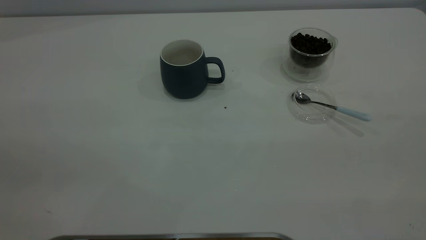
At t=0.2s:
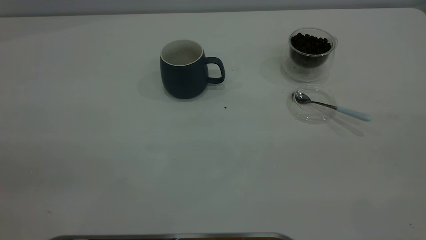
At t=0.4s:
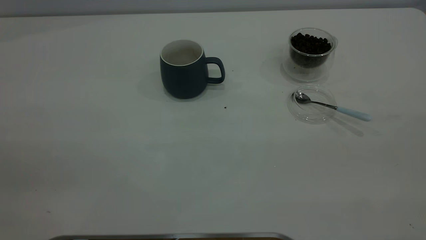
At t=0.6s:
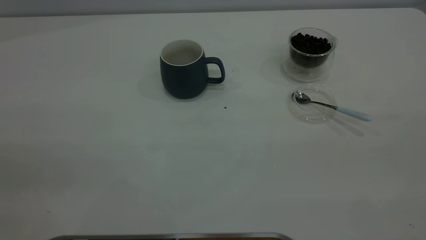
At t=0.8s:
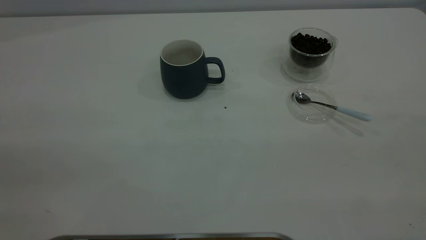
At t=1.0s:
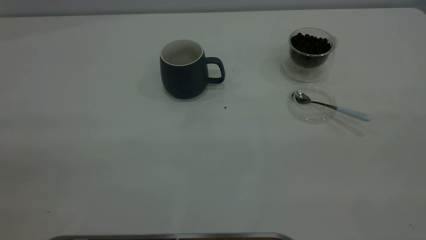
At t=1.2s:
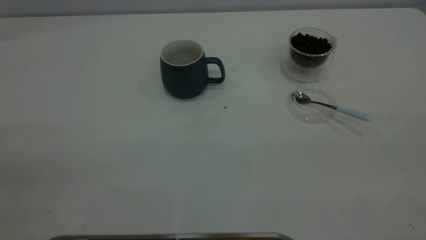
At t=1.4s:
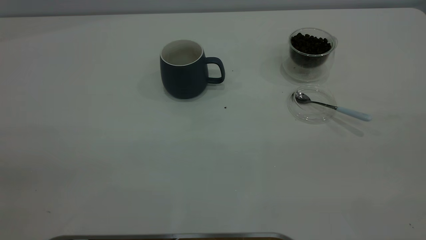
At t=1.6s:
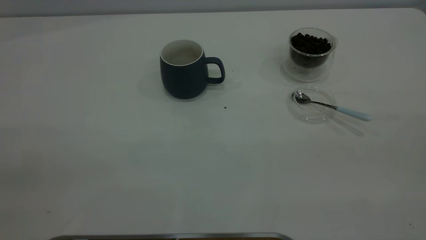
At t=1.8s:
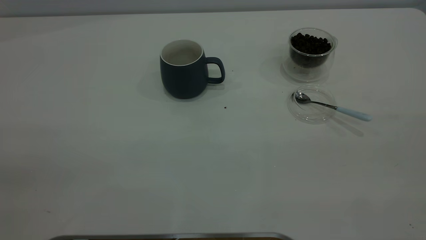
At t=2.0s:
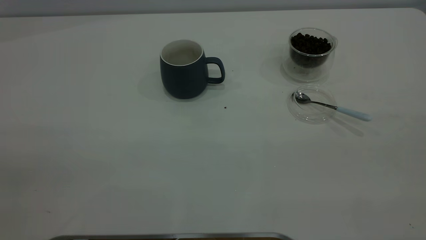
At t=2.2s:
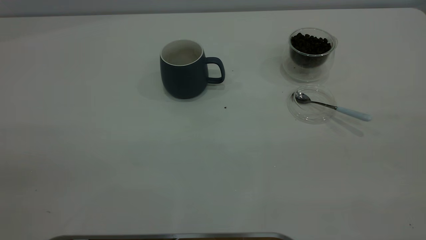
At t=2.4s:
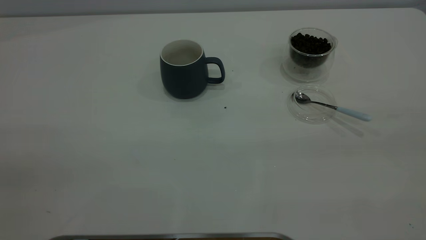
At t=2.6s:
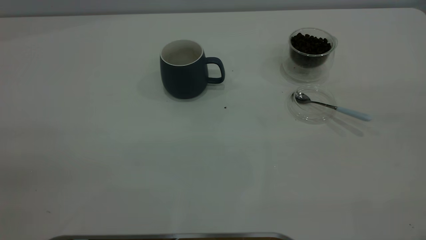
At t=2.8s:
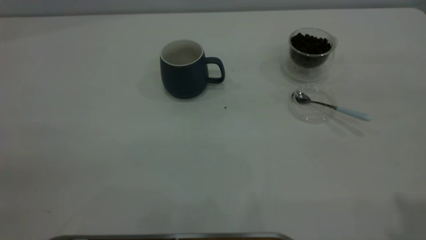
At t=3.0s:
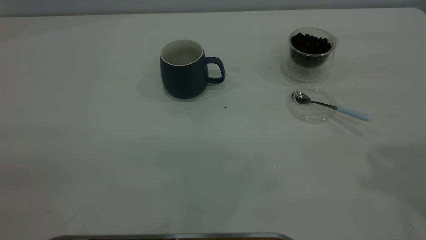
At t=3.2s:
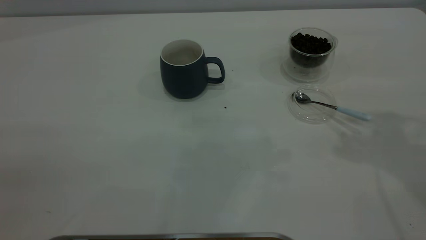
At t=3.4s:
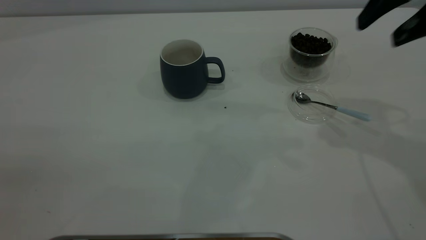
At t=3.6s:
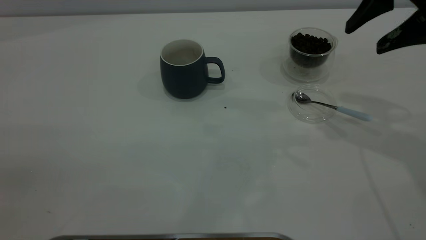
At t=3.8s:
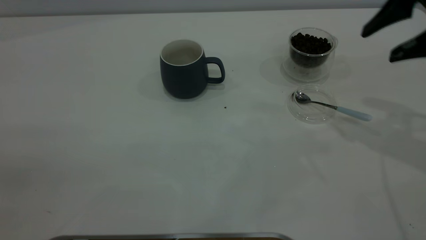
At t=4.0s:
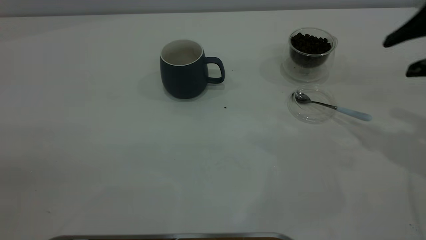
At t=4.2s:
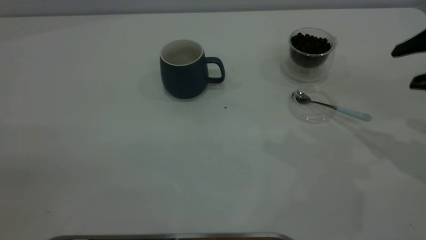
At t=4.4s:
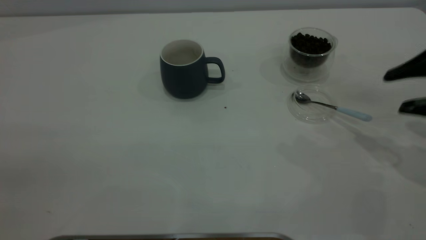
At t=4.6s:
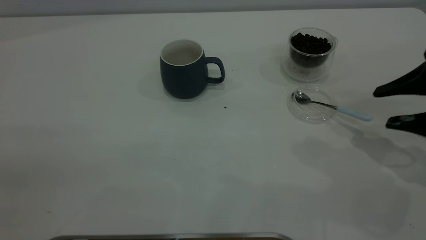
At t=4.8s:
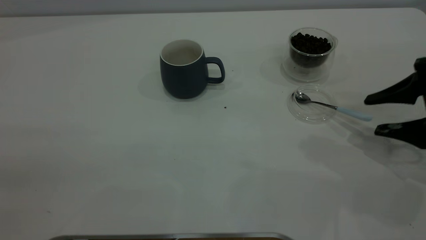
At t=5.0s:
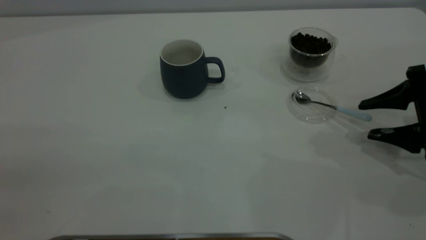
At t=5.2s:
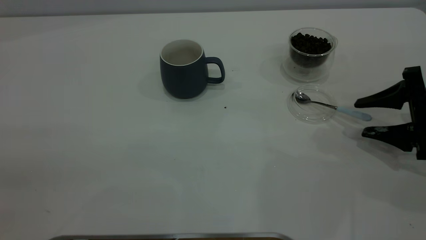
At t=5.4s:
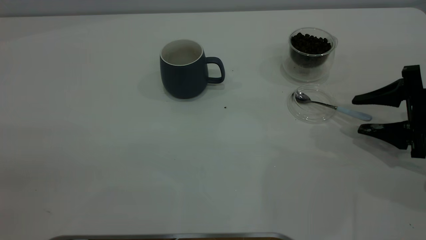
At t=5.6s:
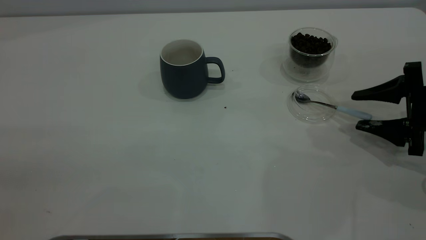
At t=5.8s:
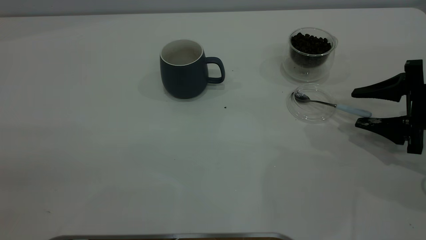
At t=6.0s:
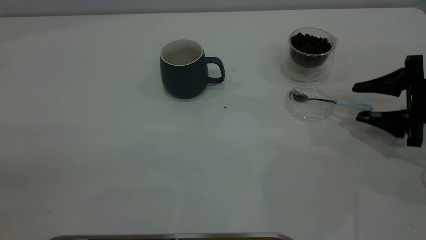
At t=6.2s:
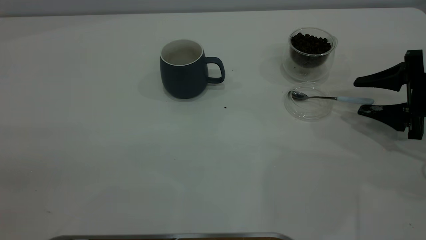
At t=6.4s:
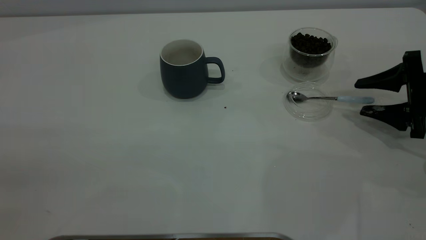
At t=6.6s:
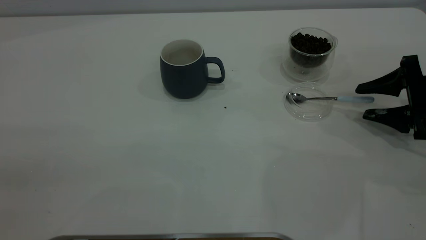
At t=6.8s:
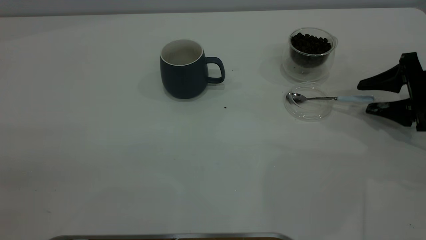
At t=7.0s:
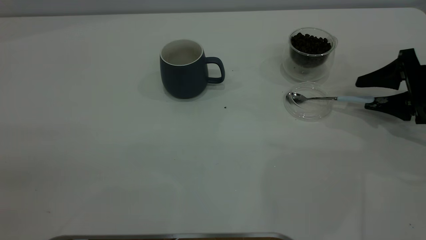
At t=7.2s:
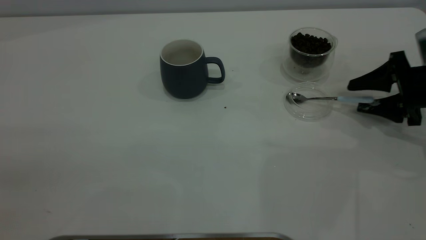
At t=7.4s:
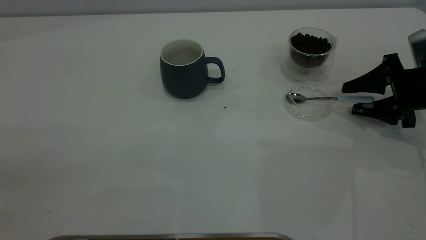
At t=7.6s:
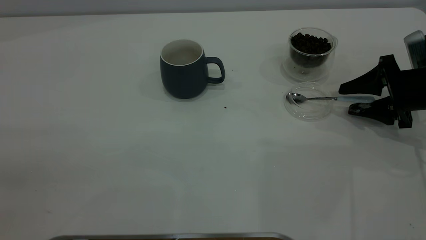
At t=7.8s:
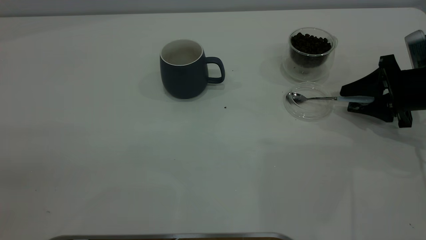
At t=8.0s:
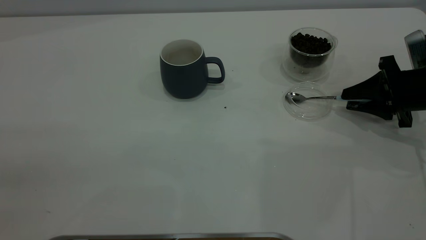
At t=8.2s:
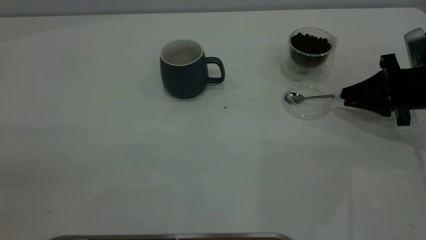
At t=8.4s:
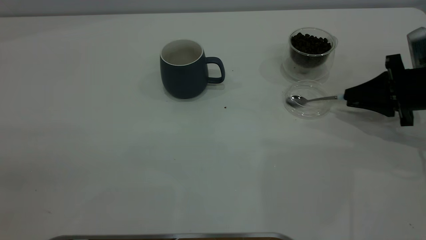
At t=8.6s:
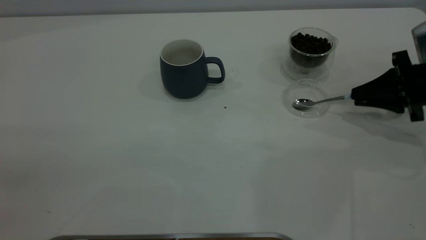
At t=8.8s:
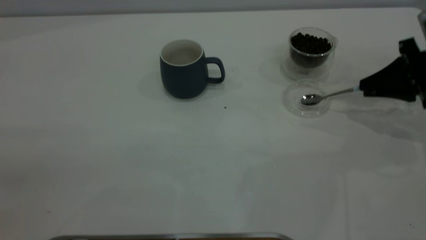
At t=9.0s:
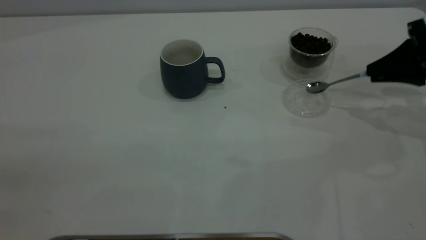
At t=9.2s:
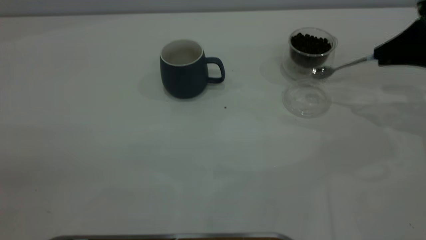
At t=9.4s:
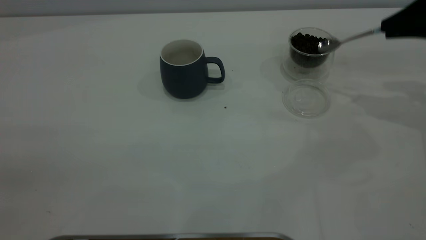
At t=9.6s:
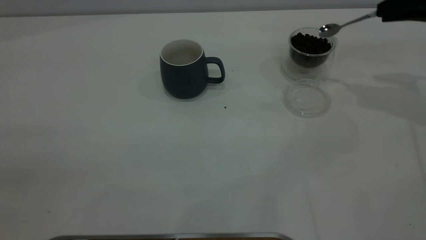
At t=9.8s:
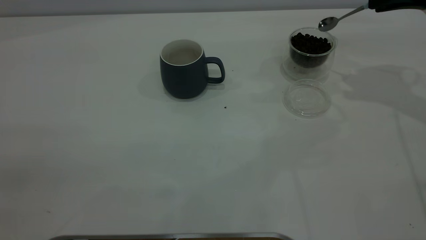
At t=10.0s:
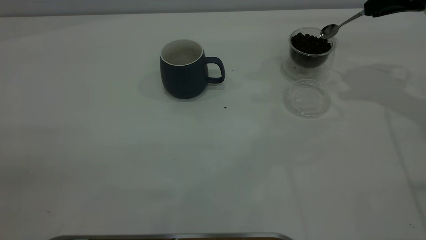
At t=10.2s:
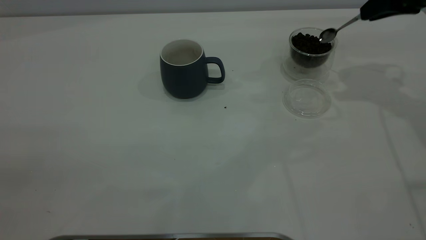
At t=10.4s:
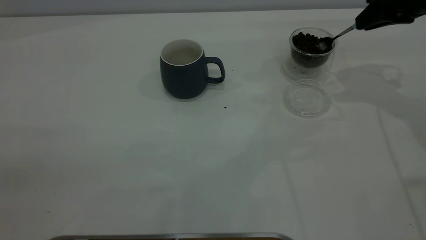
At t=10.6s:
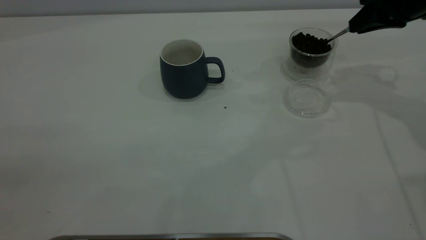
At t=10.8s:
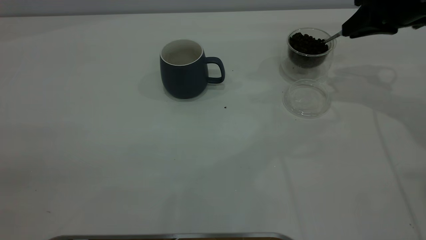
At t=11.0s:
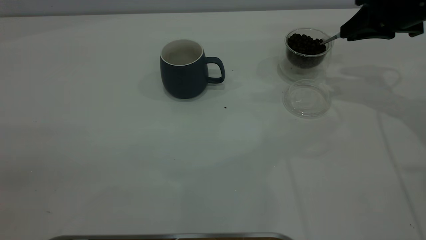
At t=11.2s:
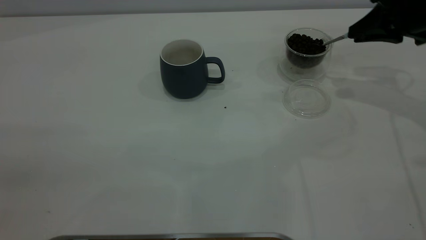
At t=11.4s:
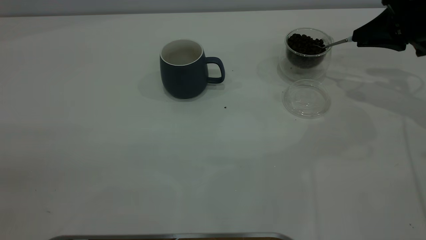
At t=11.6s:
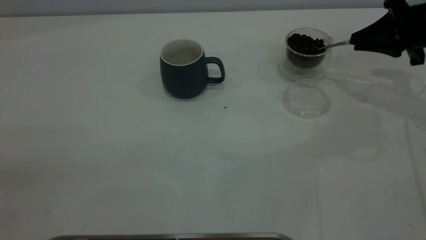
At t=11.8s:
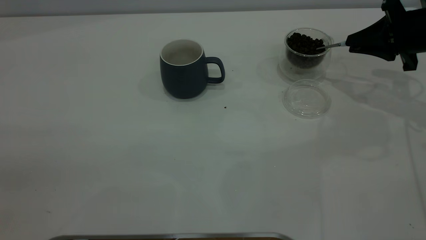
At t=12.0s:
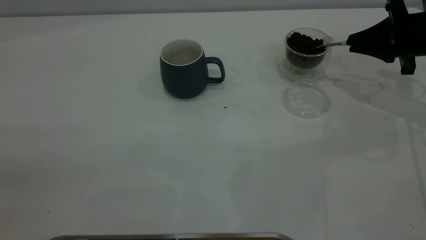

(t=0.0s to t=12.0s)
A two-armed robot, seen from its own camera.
Task of the whole recording: the left gripper place the grey cup in the center of the table, the right gripper take the blue spoon from the cup lid and scoop out the coffee beans from the coffee cup and put them into the grey cup, the right gripper put the spoon back into the cup lid.
Step, t=0.0s - t=9.2s: Pick up the spoon.
t=3.0s - t=4.4s: The right gripper heads downward, covering some 25 cm.
t=4.4s - t=6.0s: The right gripper heads downward, covering some 10 cm.
t=6.0s - t=7.6s: The grippers move only a little.
t=7.6s - t=9.0s: The right gripper moves upward, roughly 10 cm, and closes.
t=9.0s - t=10.4s: The right gripper travels upward, forward and to the left by roughly 10 cm.
t=10.4s - t=12.0s: The right gripper goes some 10 cm downward.

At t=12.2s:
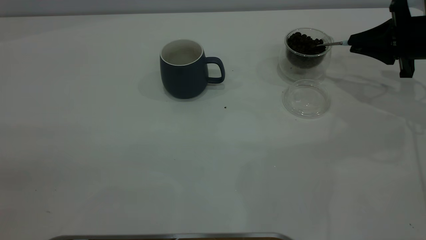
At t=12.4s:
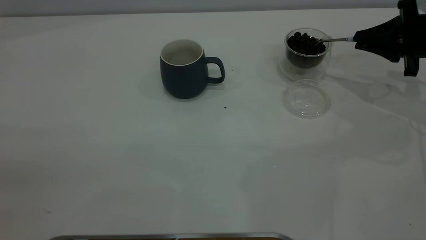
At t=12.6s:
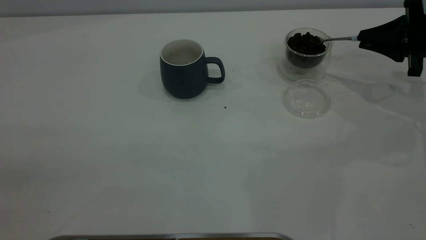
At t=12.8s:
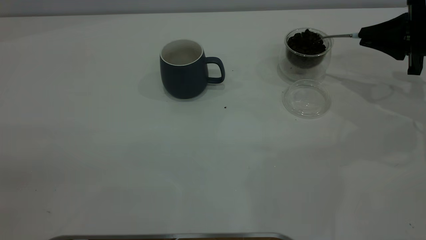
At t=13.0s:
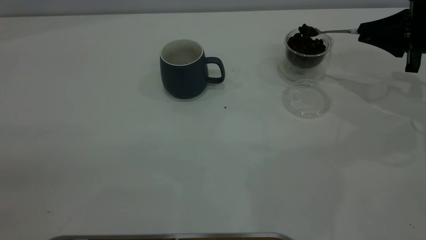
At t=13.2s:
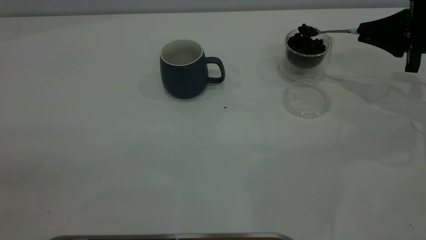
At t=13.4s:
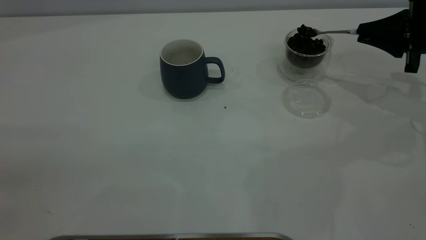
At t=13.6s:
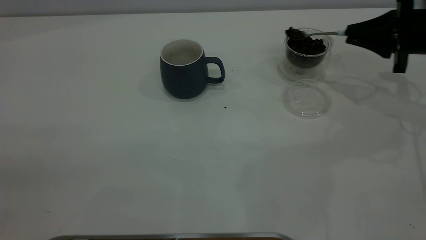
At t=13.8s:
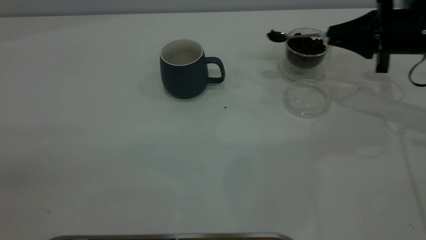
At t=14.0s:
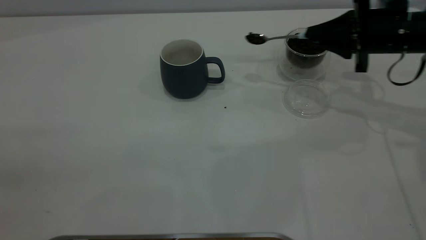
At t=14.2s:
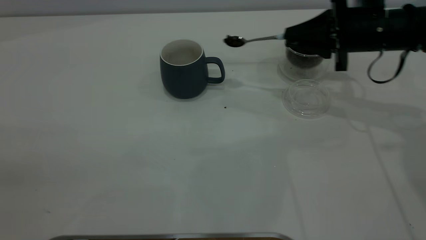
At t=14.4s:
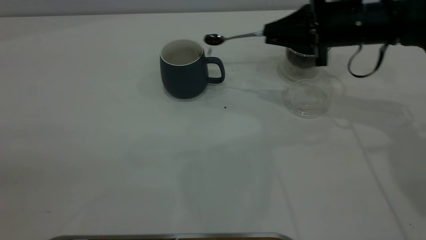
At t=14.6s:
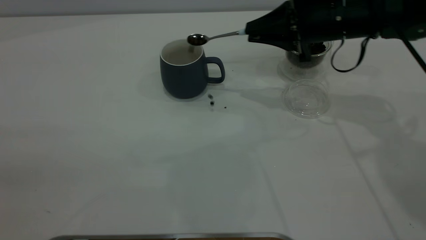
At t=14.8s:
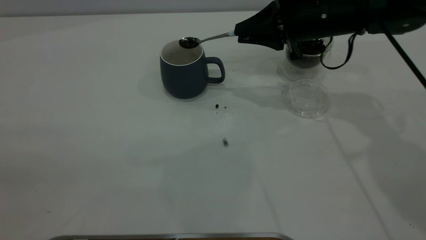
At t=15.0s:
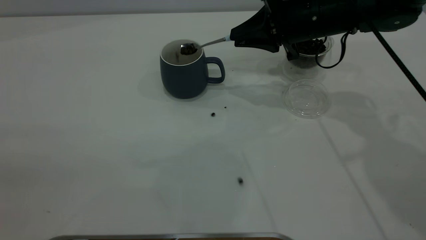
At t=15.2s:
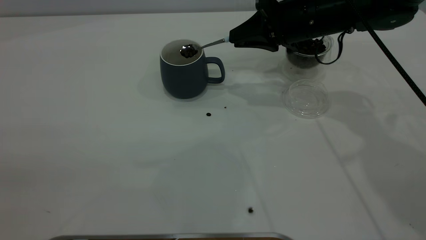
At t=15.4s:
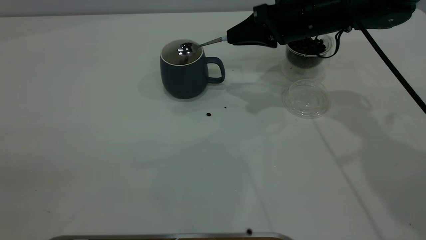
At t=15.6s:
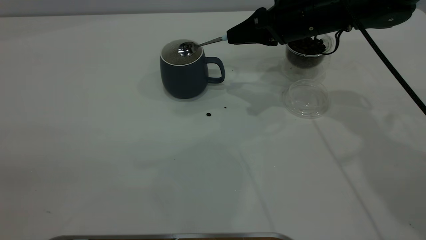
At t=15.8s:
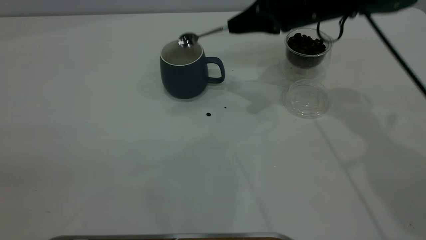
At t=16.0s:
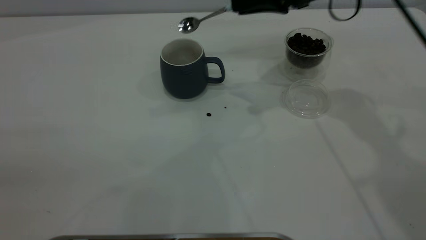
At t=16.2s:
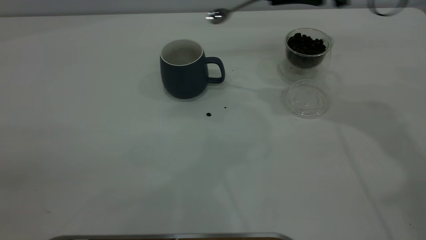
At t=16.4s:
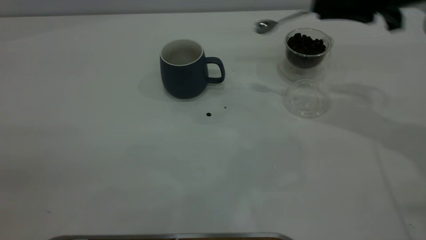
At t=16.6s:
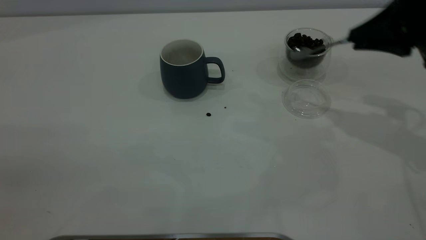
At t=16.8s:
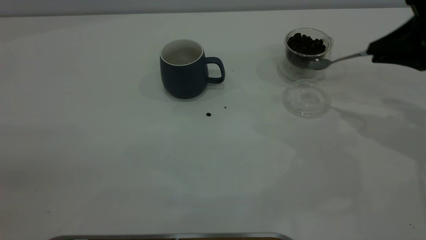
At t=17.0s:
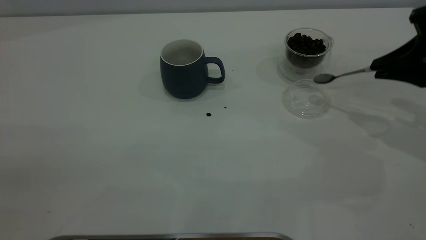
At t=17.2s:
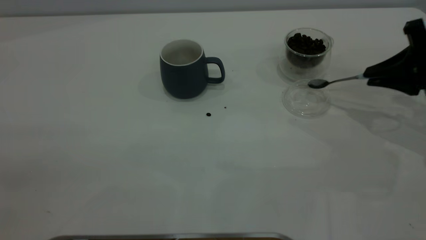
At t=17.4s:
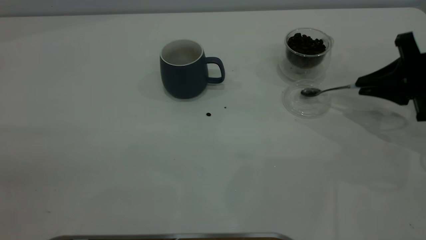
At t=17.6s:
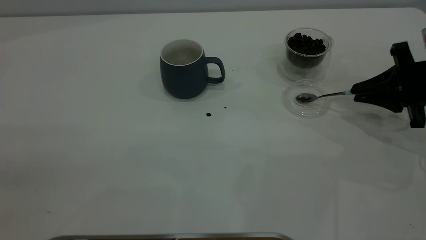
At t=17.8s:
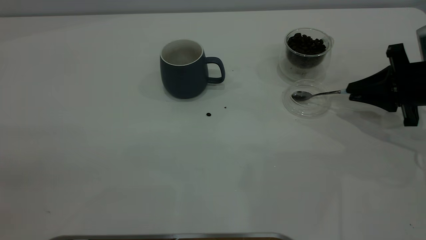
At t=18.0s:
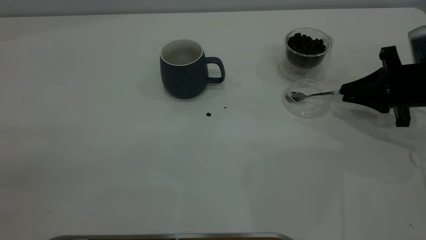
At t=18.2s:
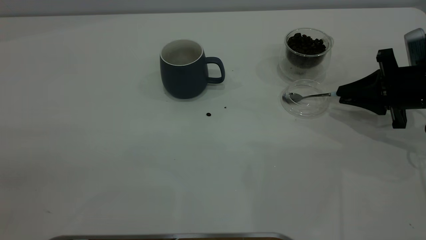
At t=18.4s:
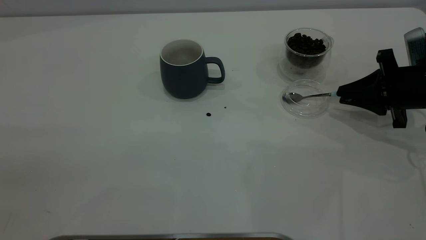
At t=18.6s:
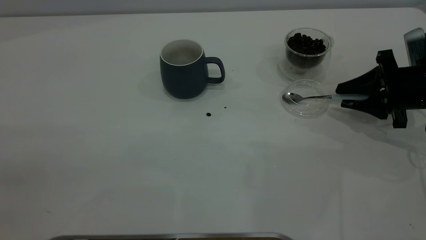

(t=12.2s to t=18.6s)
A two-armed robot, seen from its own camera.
Task of the whole recording: the left gripper place the grey cup in the center of the table, the right gripper take the blue spoon from the cup lid and scoop out the coffee beans from the coffee cup and put them into the grey cup, the right gripper put the spoon back into the cup lid.
Step, t=12.2s - t=15.8s: Scoop a spoonful of beans into the cup.
t=12.2s - t=13.8s: The grippers stay close to where they were, moving slightly.
t=13.8s - t=15.4s: The right gripper goes some 15 cm to the left.
t=15.4s - t=17.0s: The right gripper travels to the right and backward by about 20 cm.
t=17.0s - t=18.6s: The right gripper travels downward by some 10 cm, and opens.
